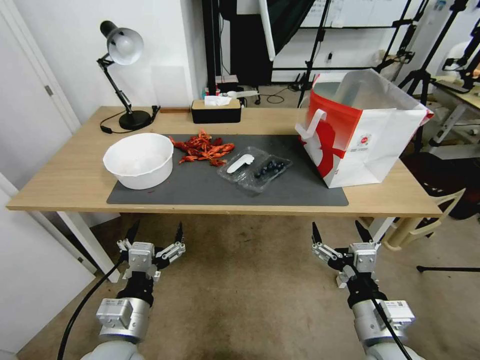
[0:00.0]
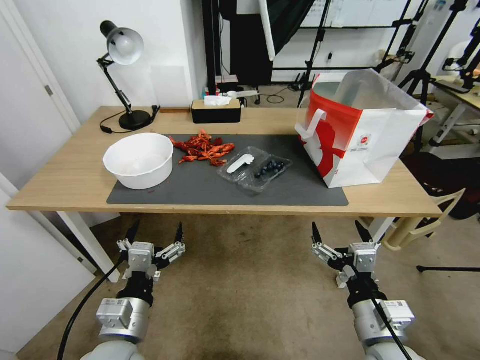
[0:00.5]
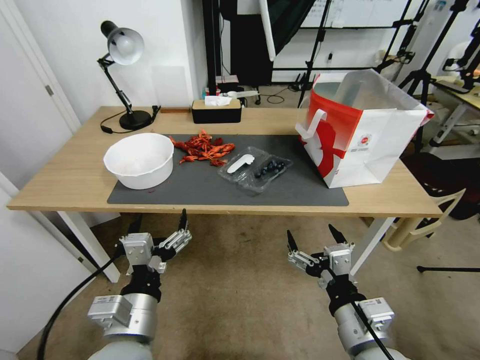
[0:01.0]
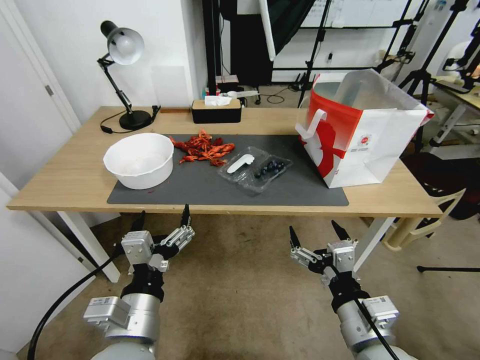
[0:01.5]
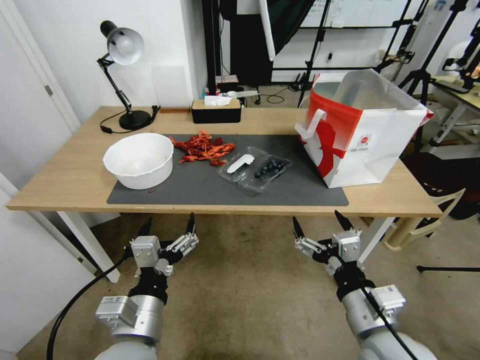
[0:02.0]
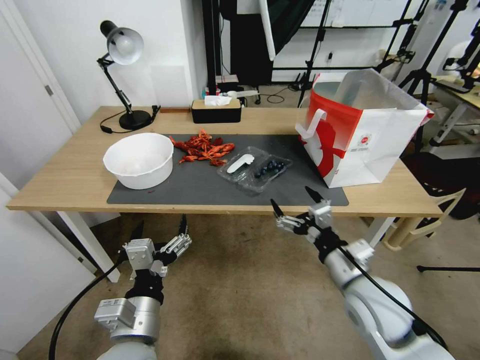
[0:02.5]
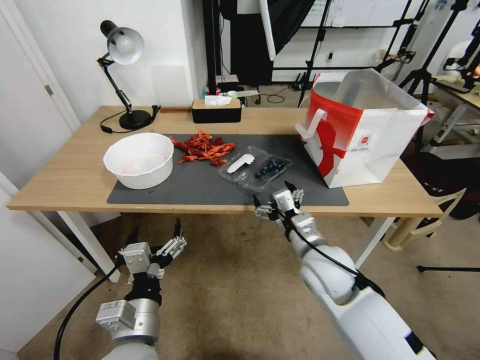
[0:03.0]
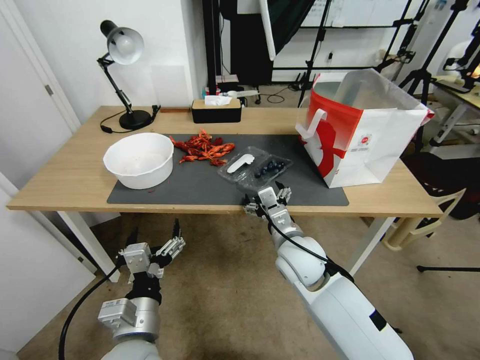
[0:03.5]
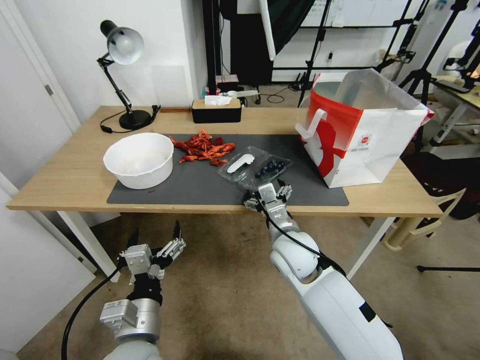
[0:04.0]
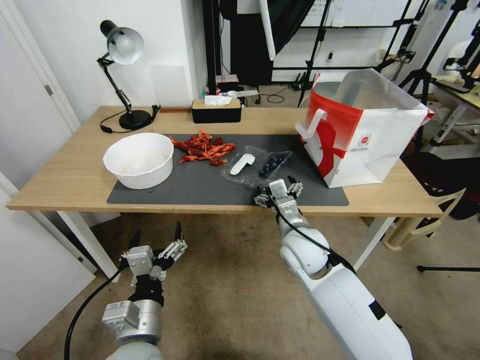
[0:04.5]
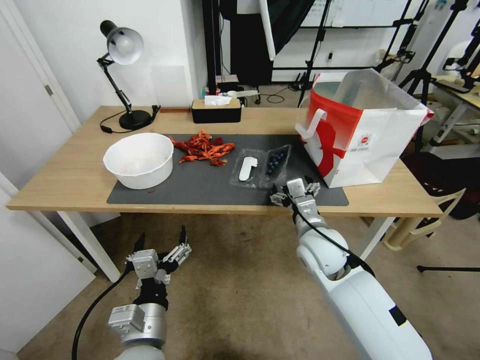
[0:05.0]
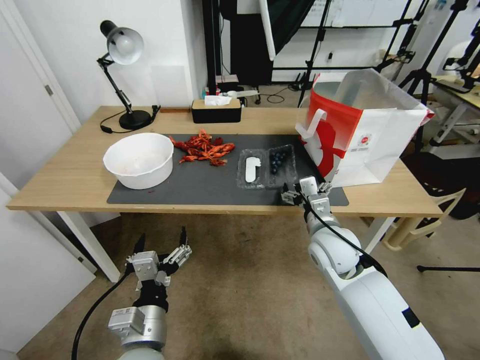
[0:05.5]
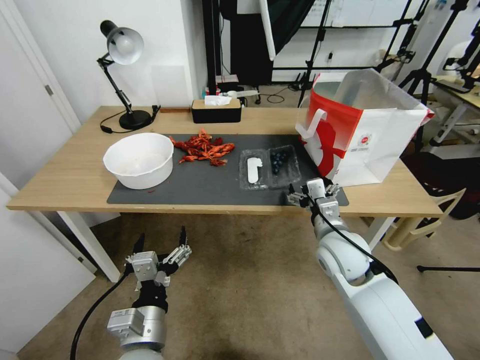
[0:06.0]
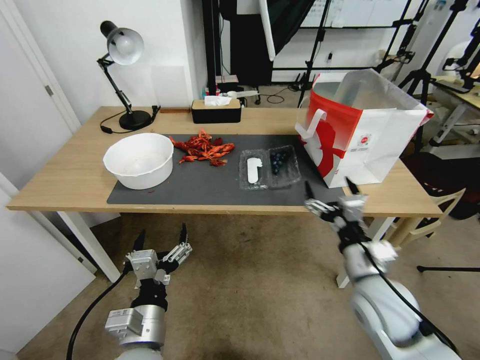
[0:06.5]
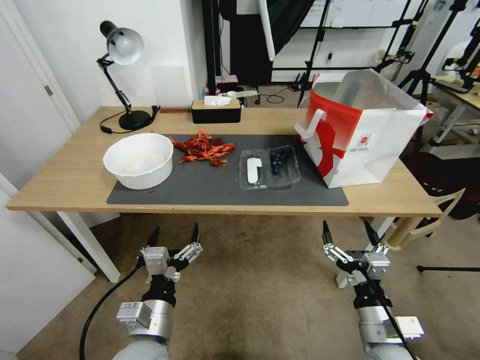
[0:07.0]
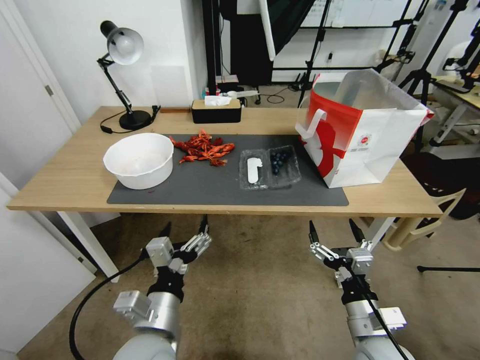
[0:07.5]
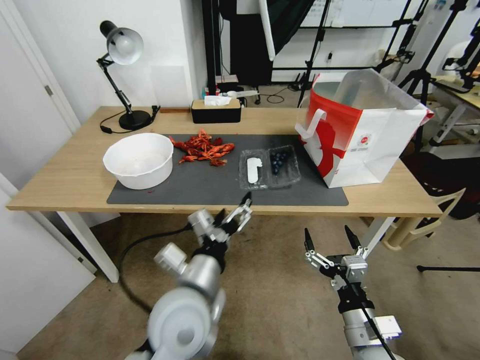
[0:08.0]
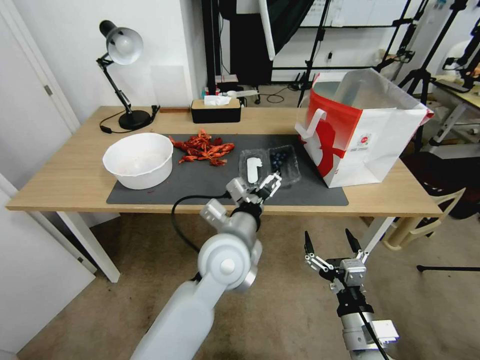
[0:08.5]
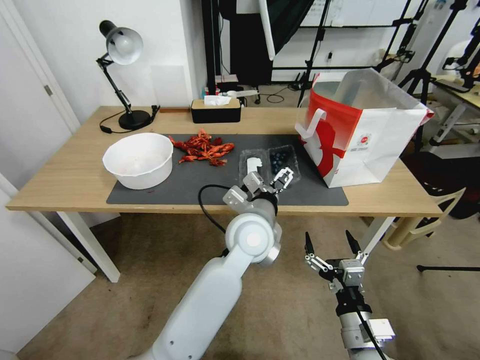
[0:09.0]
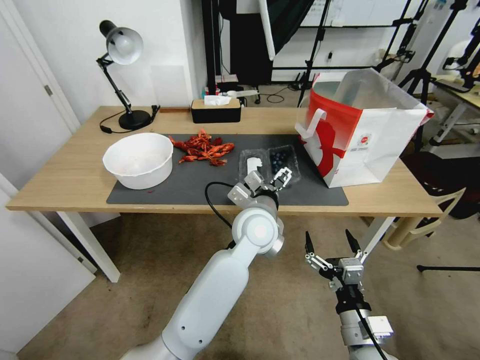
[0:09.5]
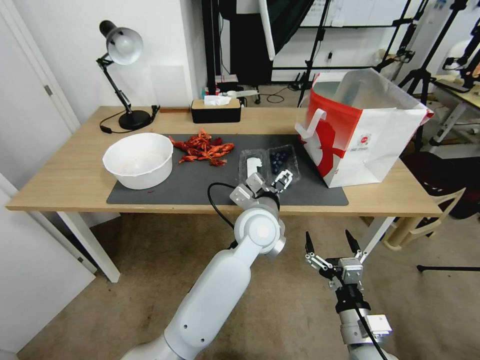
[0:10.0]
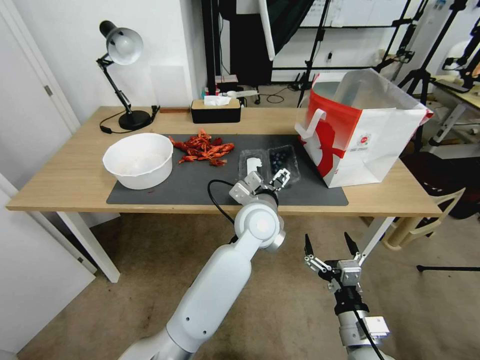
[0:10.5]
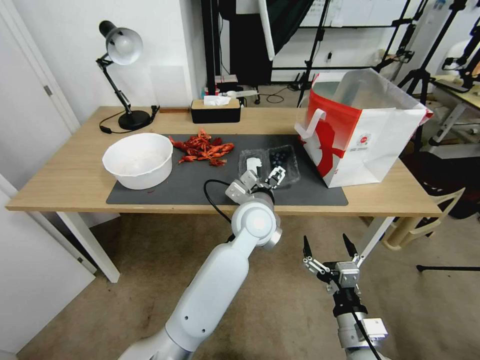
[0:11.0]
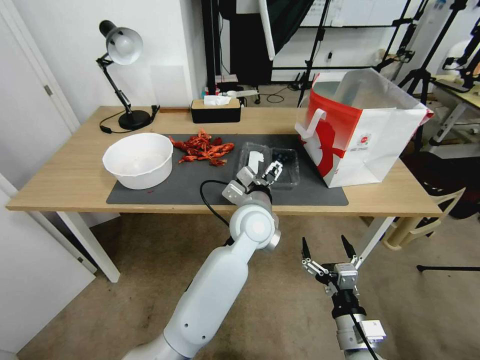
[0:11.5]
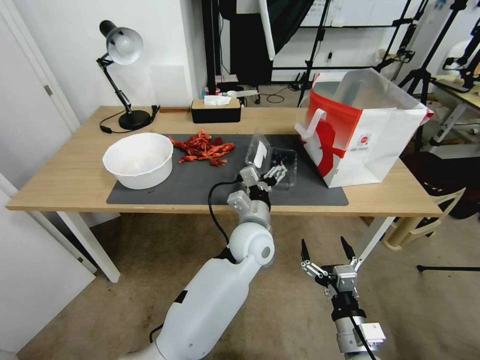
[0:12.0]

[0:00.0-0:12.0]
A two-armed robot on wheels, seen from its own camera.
Task of the whole recording: Close the takeout container lid, then place the container into the takeout bag.
0:02.0 to 0:04.0: The right gripper shifts some 20 cm forward and to the left.
0:04.0 to 0:06.0: The right gripper moves to the right, about 10 cm.
0:06.0 to 0:08.0: The right gripper is displaced backward and downward by some 20 cm, while the left gripper shifts approximately 10 cm forward, upward and to the right.
0:08.0 to 0:10.0: The left gripper goes some 20 cm forward and to the right.
0:10.0 to 0:12.0: The grippers stay close to where they were, moving slightly.

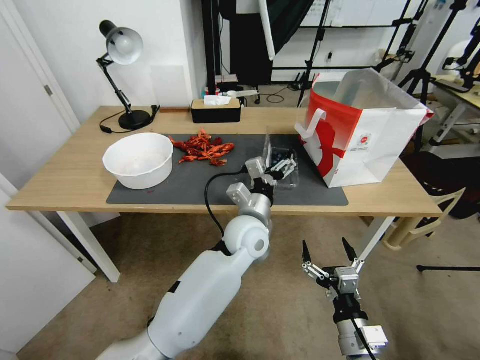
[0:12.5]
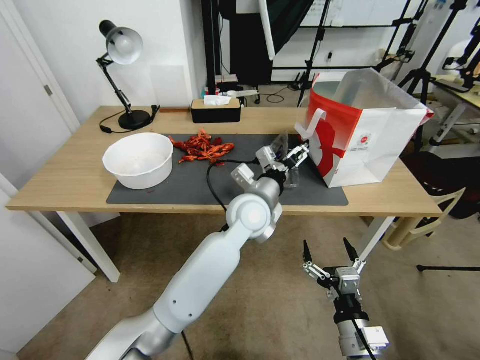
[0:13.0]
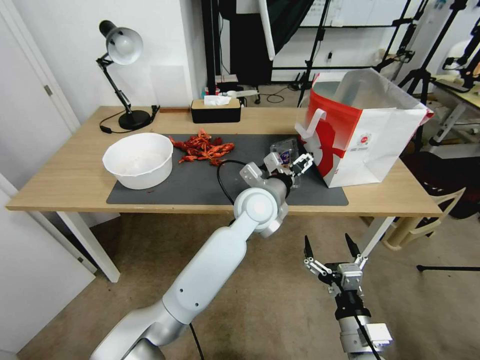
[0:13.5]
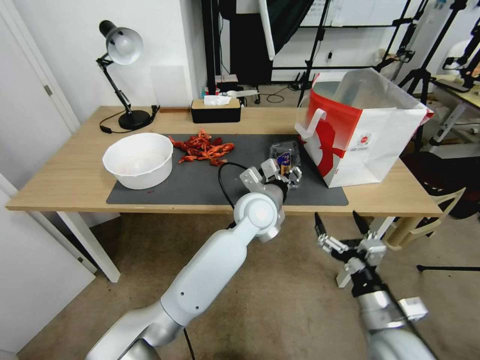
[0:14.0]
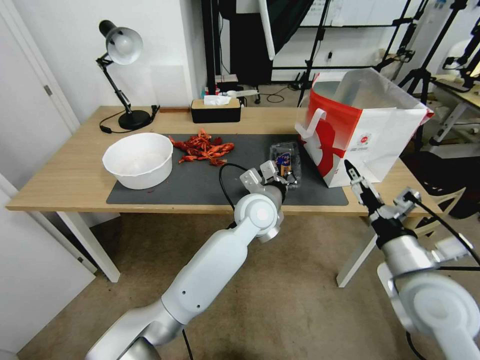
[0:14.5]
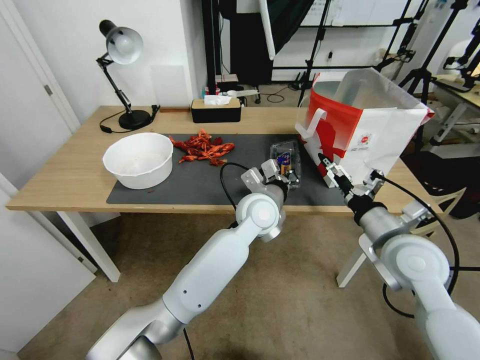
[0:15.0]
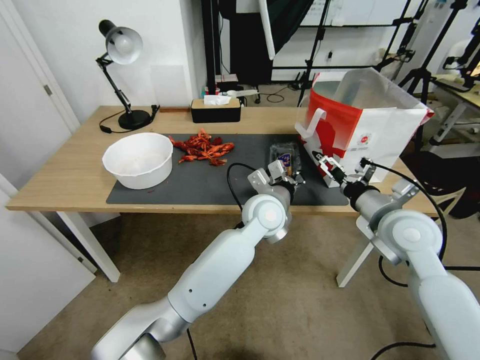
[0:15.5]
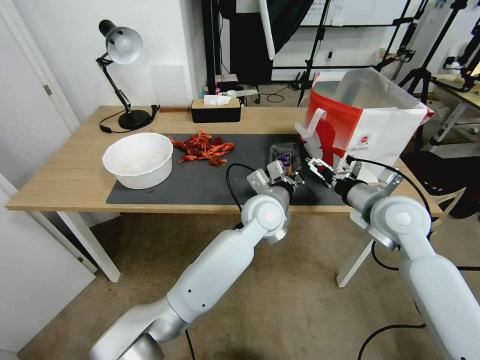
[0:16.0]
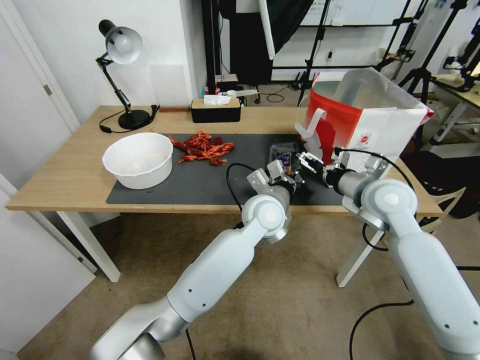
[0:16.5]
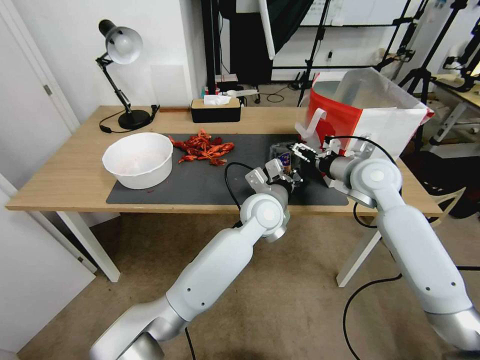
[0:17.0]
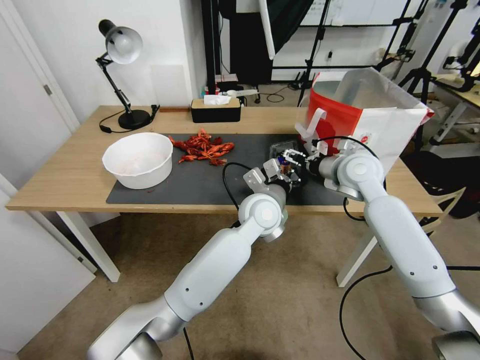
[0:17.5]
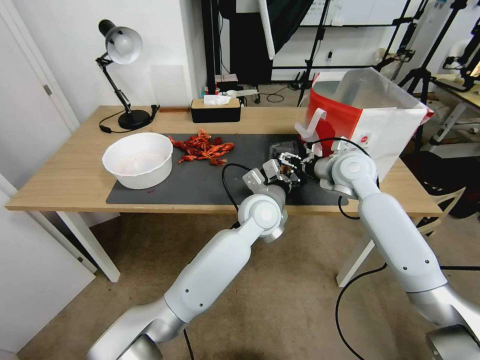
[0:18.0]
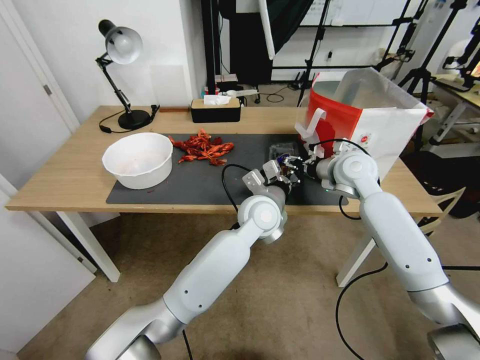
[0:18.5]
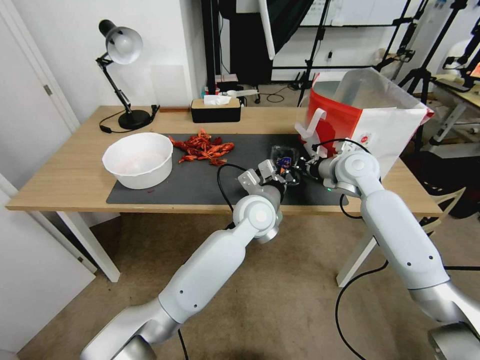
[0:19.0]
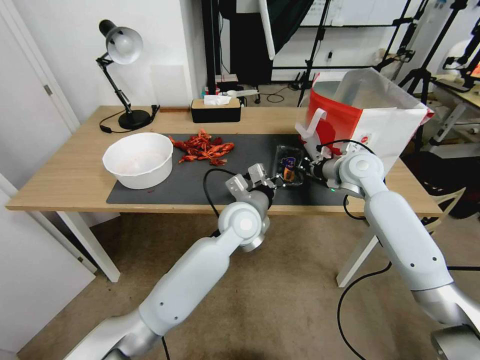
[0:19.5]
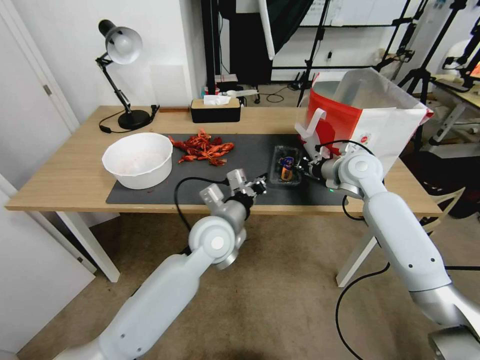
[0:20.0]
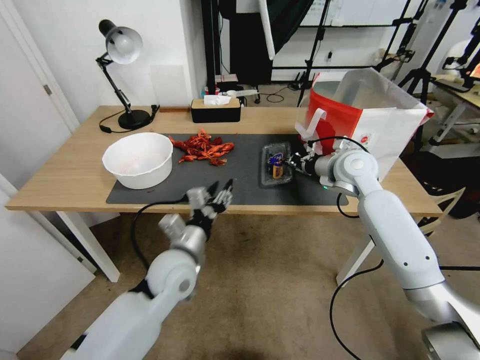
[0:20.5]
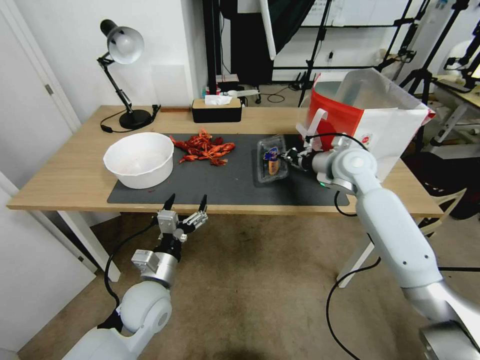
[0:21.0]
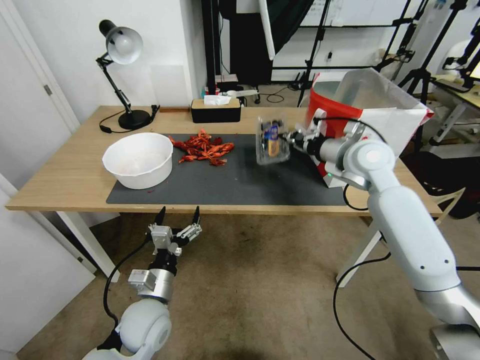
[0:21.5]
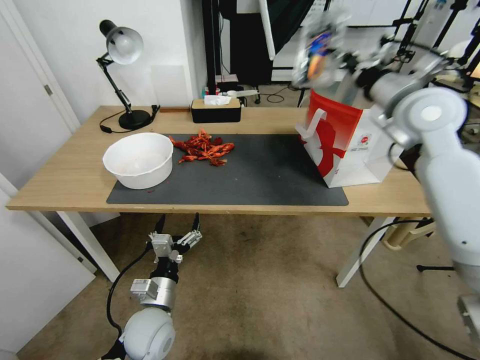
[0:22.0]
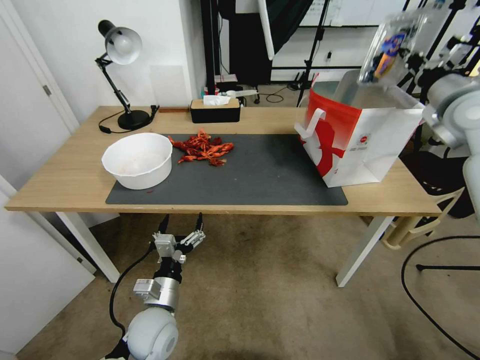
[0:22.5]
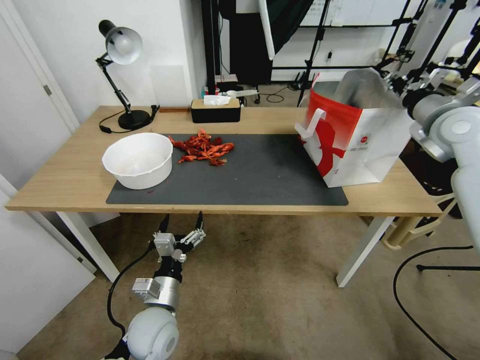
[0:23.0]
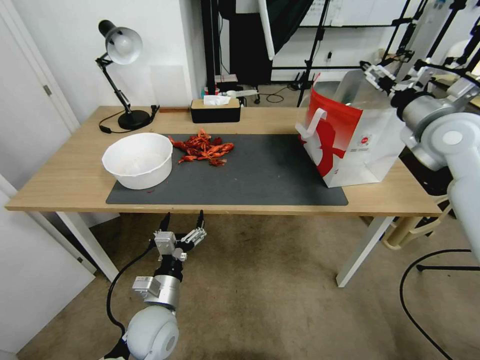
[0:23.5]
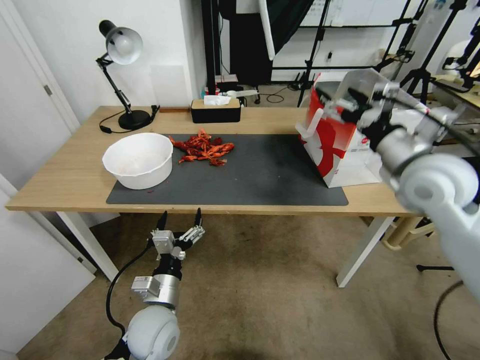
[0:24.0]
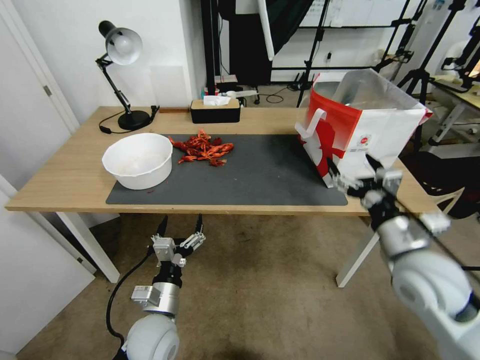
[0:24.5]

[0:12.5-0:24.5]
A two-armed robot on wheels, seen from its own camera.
Task of the whole recording: Close the takeout container lid, then place the container into the takeout bag.
0:12.5 to 0:14.5: The right gripper goes some 20 cm upward, forward and to the right; the left gripper shifts by some 5 cm, and closes.
0:14.5 to 0:16.5: The right gripper travels forward by roughly 15 cm.
0:16.5 to 0:18.5: The right gripper goes approximately 10 cm forward, and closes.
0:18.5 to 0:20.5: The left gripper heads to the left and backward, covering some 20 cm, and opens its fingers; the right gripper closes.
0:20.5 to 0:22.5: The left gripper shifts approximately 15 cm downward and backward, and opens its fingers. The right gripper heads upward and to the right, covering some 20 cm.
0:22.5 to 0:24.5: The right gripper is displaced backward, downward and to the left by some 30 cm, and opens its fingers.

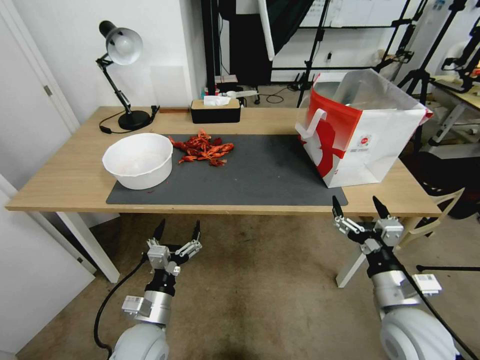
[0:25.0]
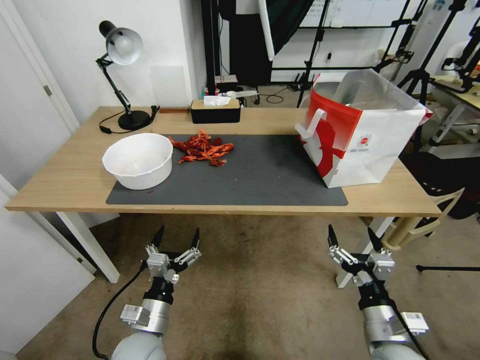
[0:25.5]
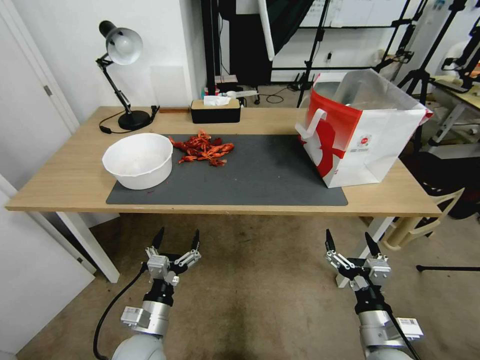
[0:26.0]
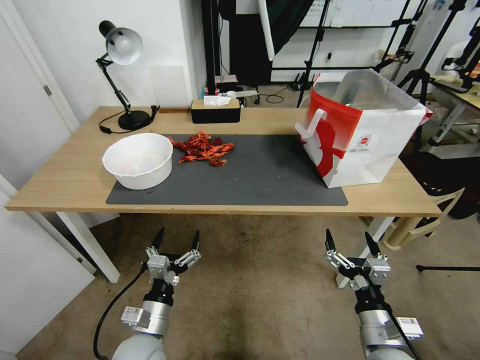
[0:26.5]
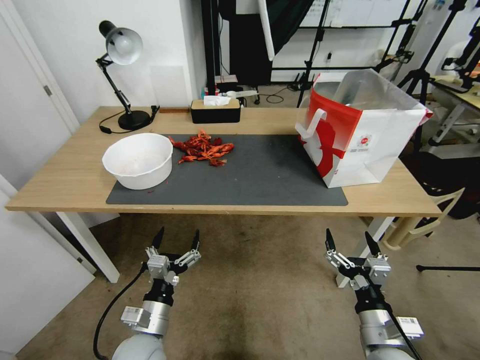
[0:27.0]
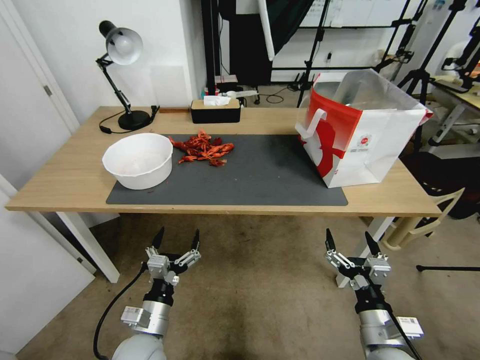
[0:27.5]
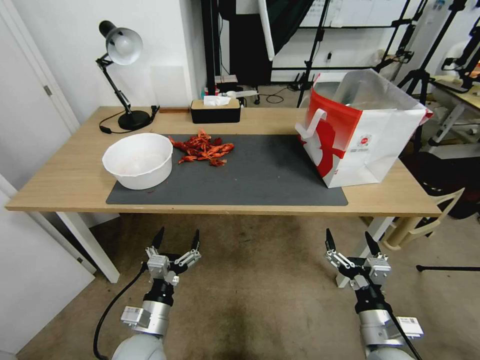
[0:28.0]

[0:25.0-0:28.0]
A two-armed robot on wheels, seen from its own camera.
Task of the whole recording: Close the takeout container lid, then place the container into the takeout bag.
0:25.0 to 0:26.5: The right gripper travels downward by about 5 cm.
0:26.5 to 0:28.0: Both grippers stay put.
